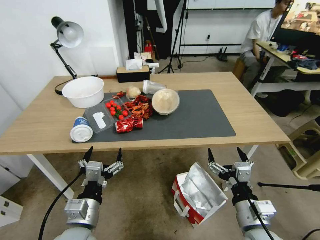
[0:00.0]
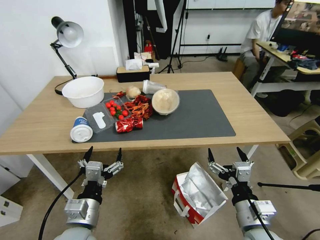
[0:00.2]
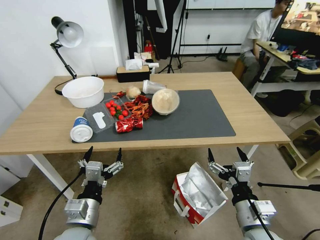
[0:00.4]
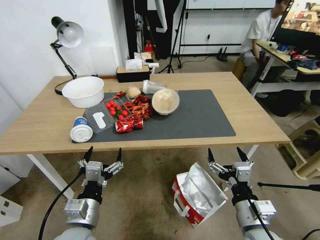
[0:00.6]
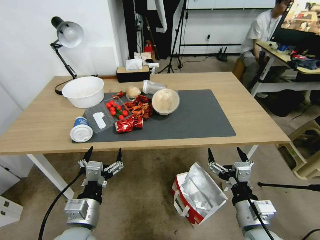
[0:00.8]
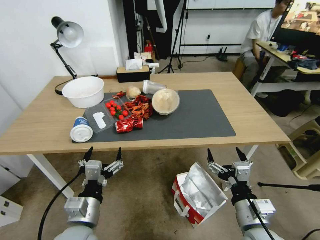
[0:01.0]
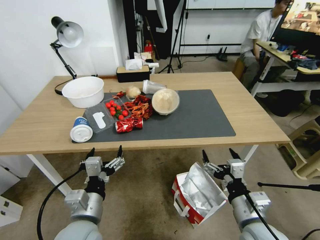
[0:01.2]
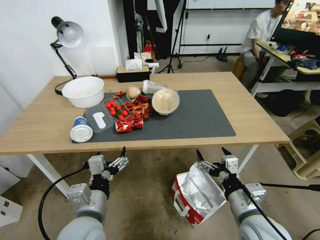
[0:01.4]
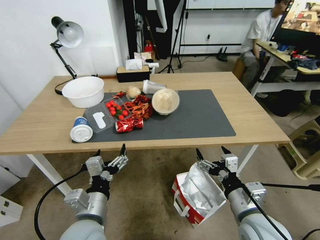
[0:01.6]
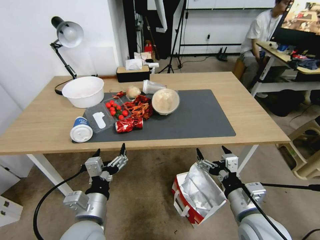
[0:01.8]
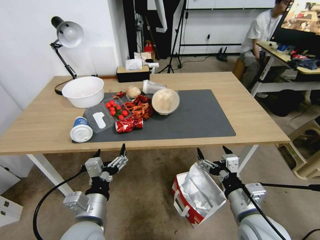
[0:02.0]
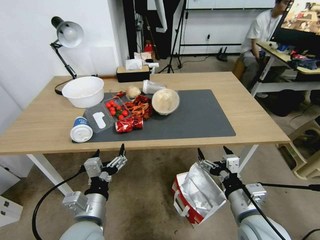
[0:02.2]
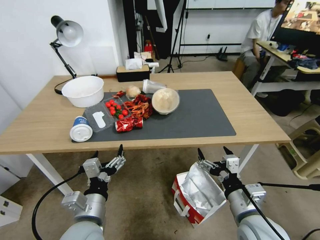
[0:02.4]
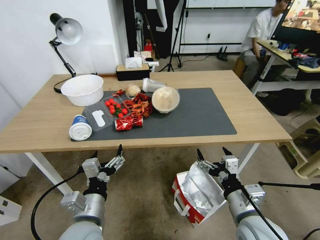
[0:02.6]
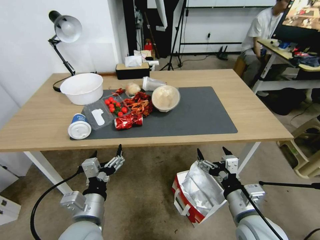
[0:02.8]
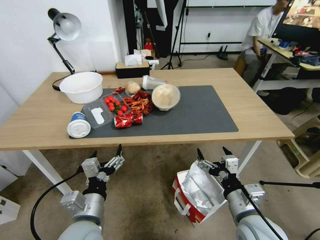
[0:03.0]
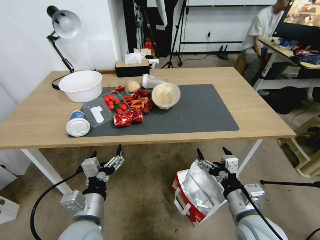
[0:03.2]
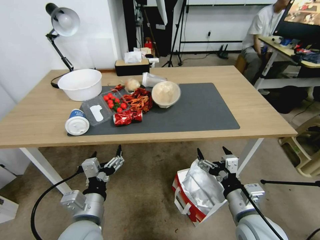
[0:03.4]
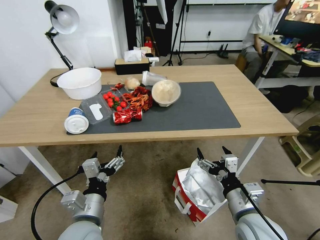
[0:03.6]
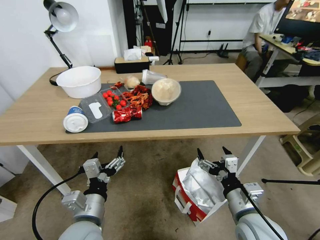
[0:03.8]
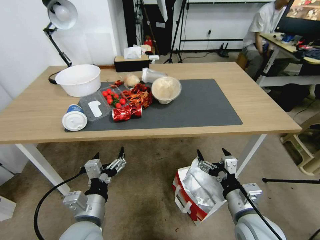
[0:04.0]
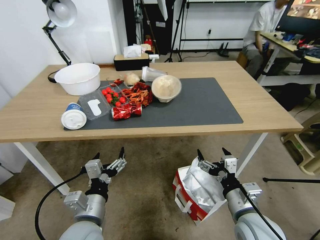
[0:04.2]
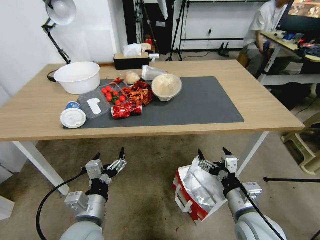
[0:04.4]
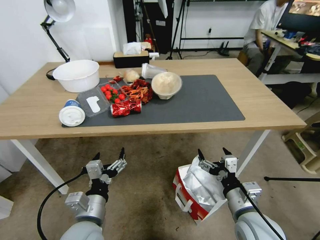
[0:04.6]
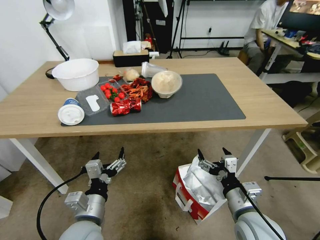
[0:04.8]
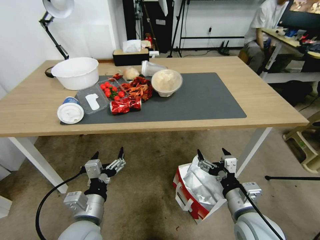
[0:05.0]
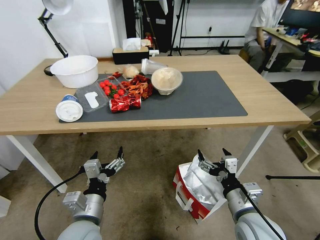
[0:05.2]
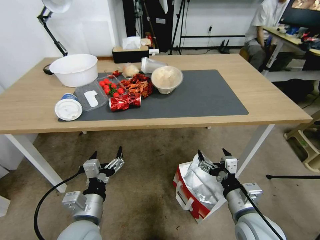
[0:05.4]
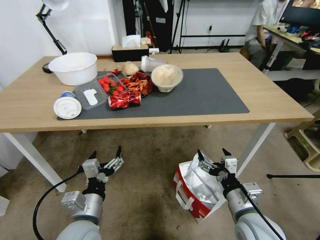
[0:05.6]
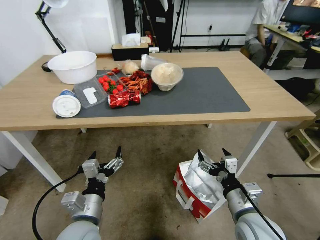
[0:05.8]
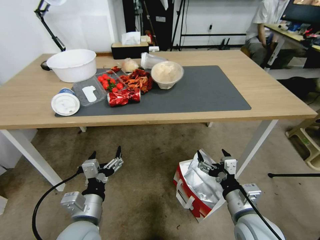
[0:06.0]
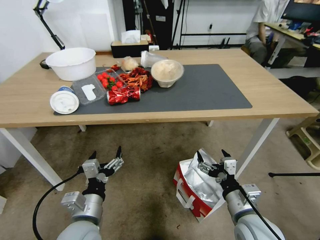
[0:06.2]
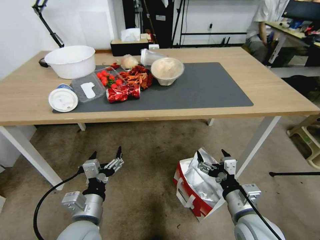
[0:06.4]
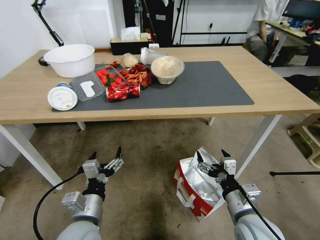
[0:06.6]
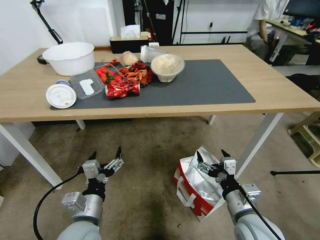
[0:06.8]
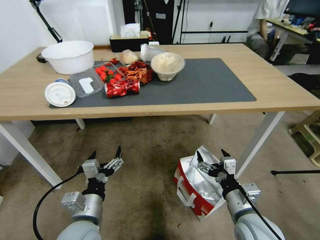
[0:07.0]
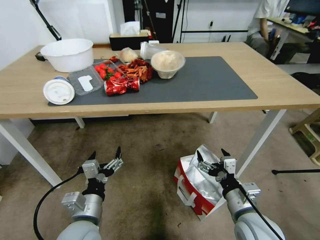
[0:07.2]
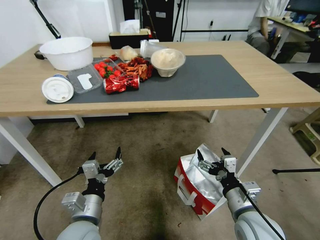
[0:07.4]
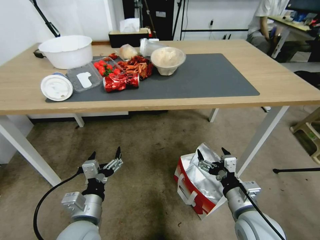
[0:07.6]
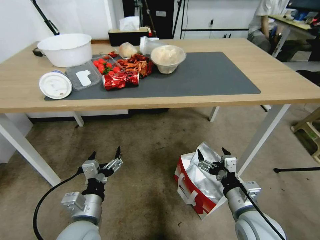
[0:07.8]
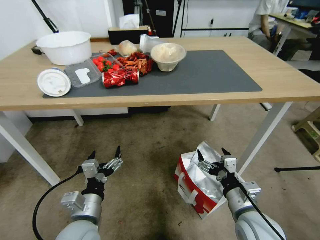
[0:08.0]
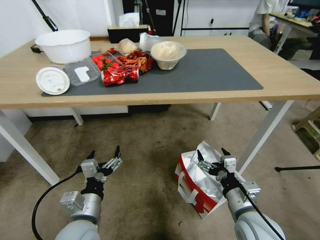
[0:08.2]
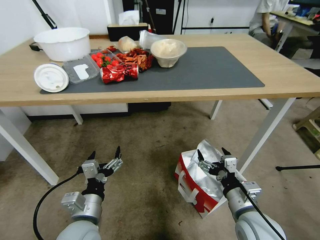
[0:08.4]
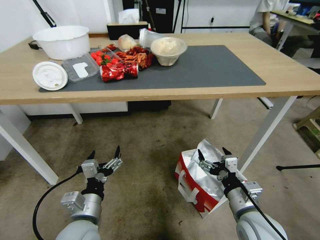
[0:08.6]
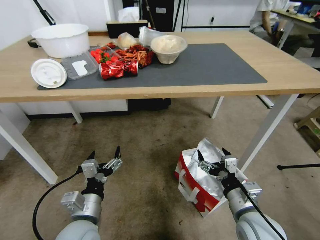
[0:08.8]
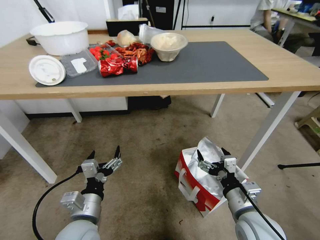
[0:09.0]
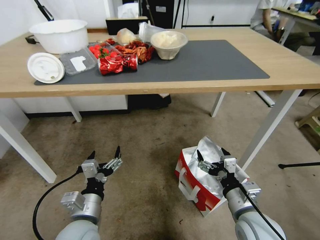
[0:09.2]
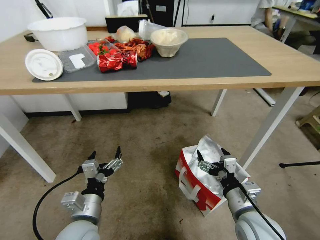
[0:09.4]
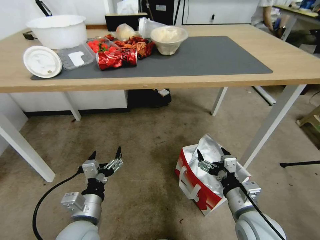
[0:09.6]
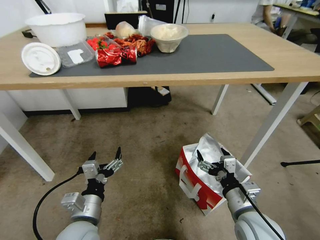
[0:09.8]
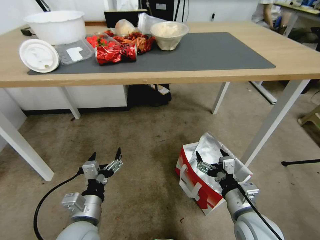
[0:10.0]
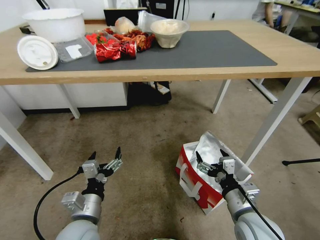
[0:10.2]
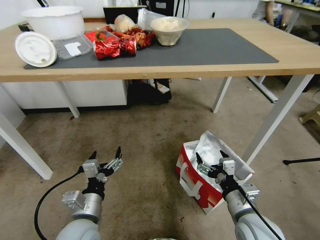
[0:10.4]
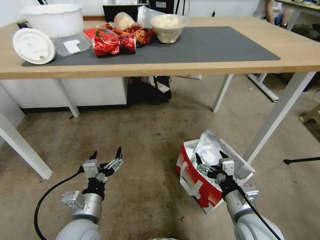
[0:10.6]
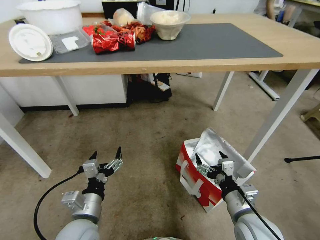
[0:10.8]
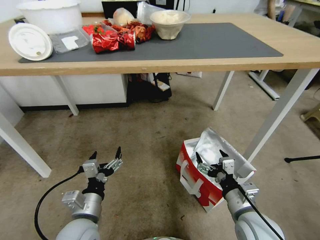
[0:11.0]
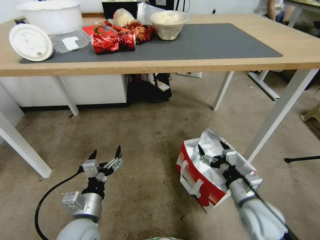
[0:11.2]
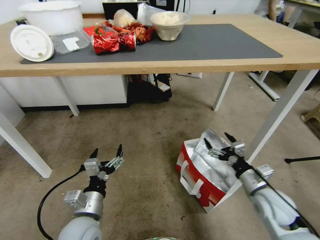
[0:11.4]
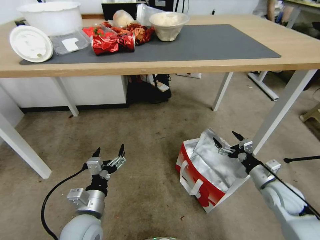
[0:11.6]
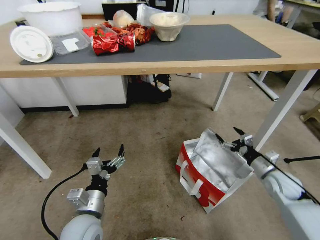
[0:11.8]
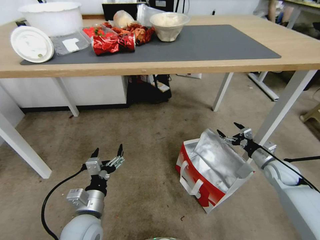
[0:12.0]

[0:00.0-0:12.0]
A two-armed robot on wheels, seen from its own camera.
Task of the whole recording: Pick up the food delivery bag from the floor and place it on the table.
0:10.4 to 0:12.0: The right gripper moves to the right and forward, approximately 30 cm.

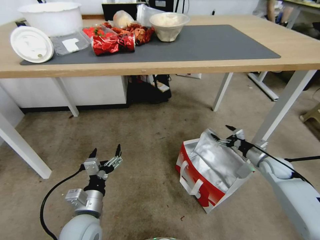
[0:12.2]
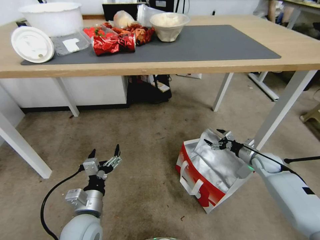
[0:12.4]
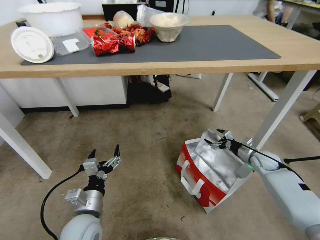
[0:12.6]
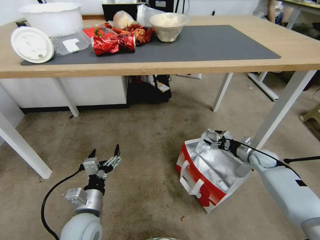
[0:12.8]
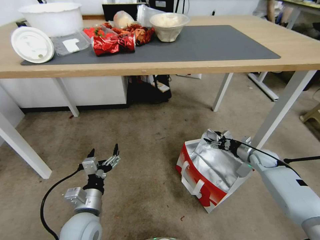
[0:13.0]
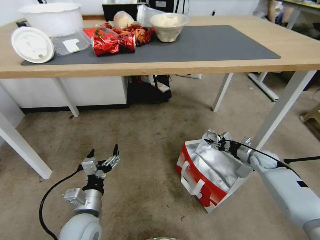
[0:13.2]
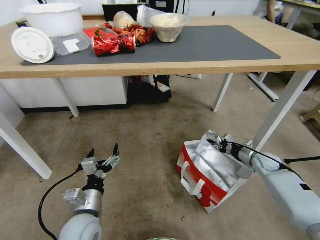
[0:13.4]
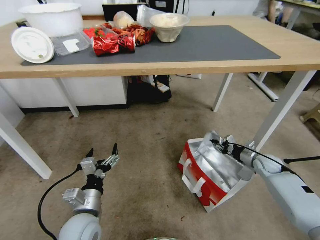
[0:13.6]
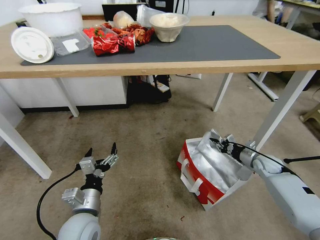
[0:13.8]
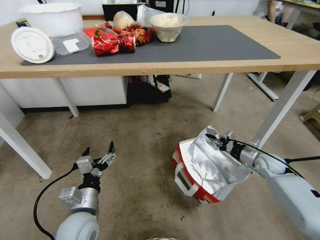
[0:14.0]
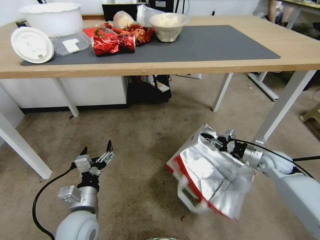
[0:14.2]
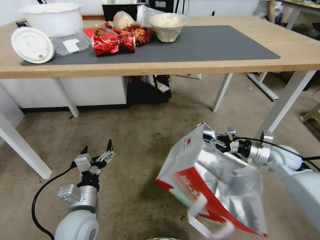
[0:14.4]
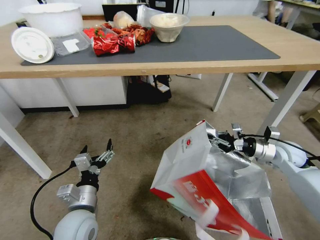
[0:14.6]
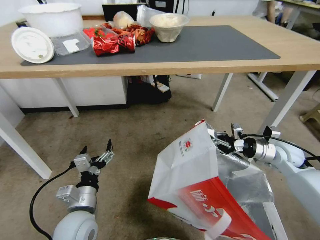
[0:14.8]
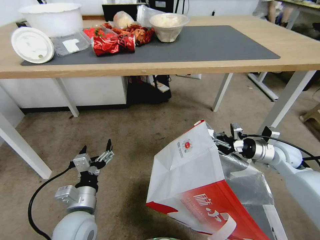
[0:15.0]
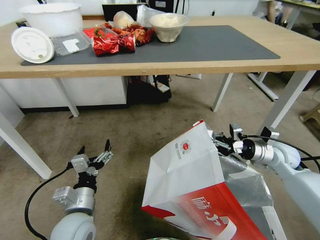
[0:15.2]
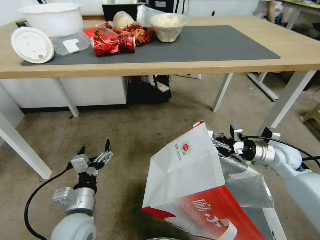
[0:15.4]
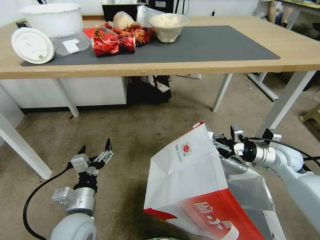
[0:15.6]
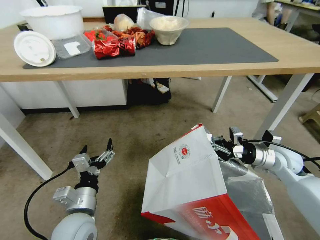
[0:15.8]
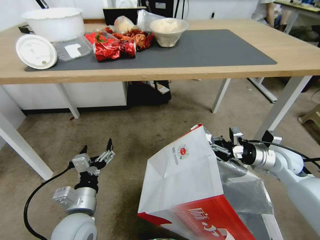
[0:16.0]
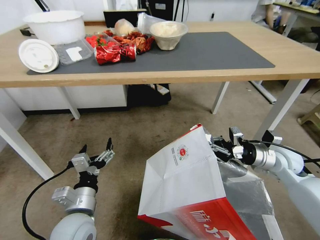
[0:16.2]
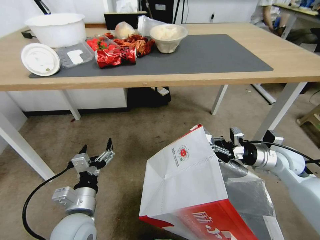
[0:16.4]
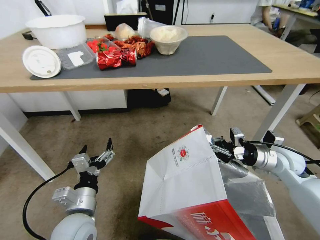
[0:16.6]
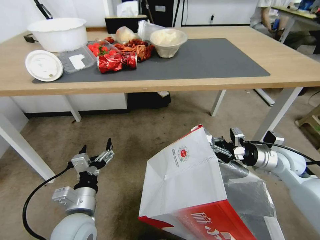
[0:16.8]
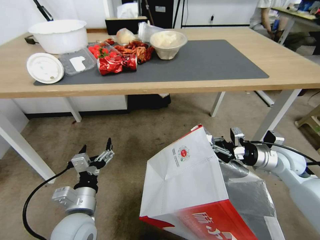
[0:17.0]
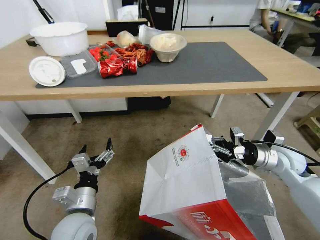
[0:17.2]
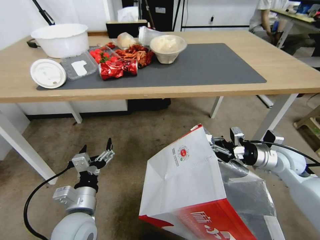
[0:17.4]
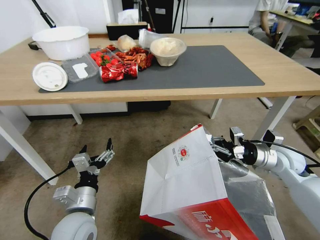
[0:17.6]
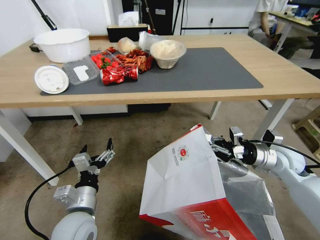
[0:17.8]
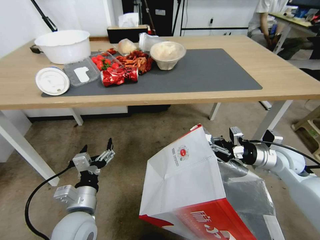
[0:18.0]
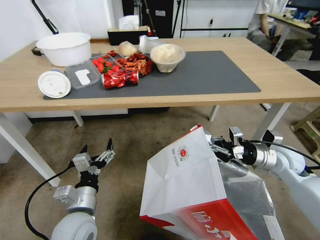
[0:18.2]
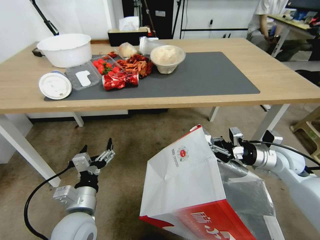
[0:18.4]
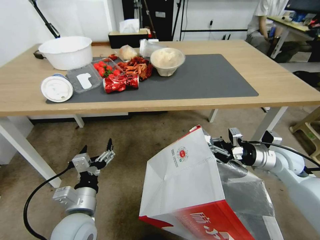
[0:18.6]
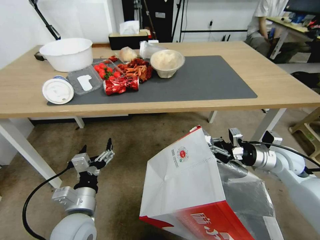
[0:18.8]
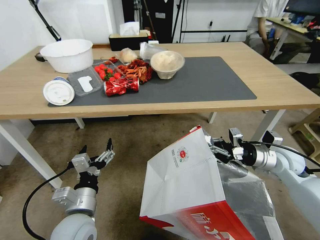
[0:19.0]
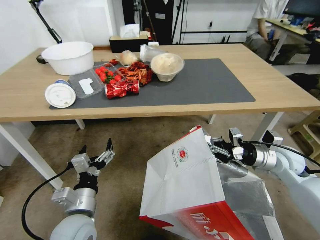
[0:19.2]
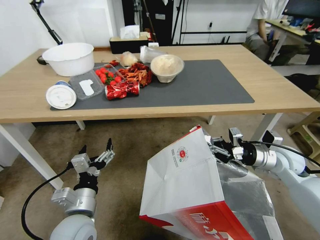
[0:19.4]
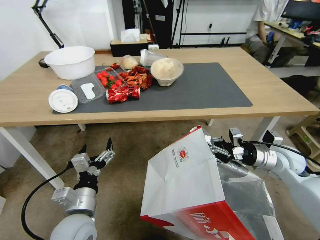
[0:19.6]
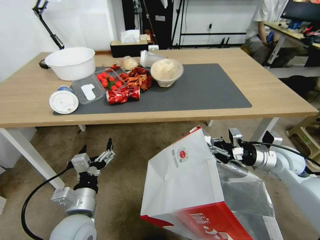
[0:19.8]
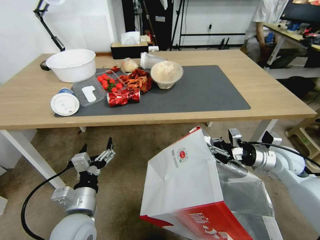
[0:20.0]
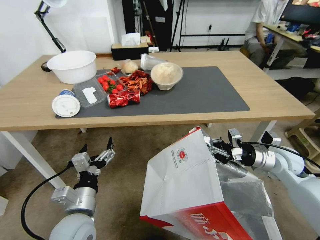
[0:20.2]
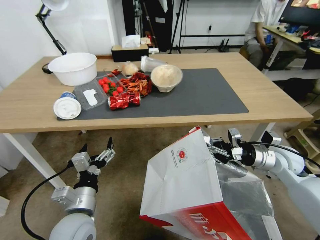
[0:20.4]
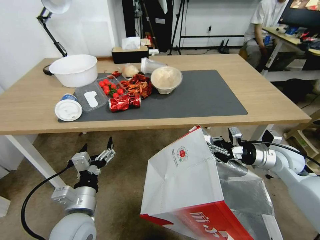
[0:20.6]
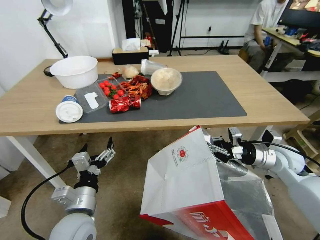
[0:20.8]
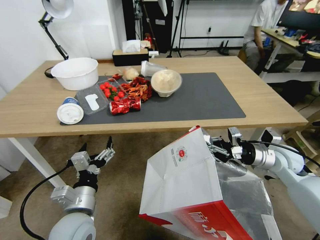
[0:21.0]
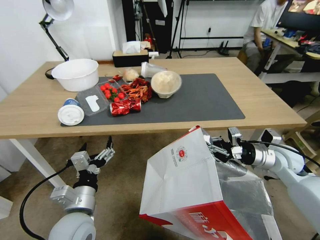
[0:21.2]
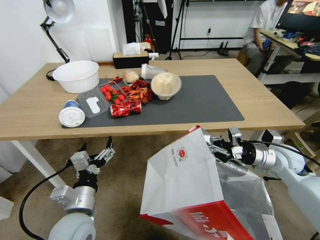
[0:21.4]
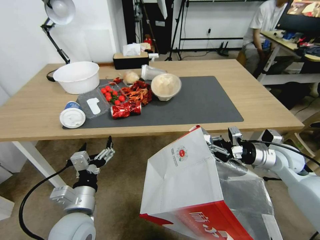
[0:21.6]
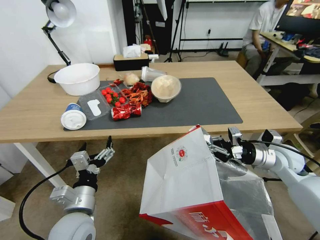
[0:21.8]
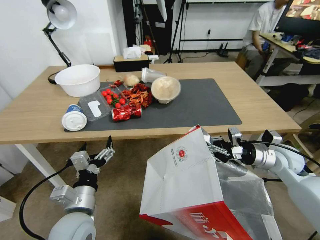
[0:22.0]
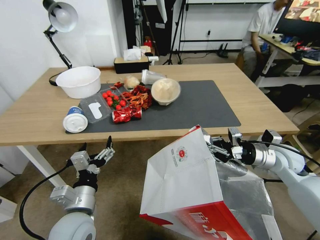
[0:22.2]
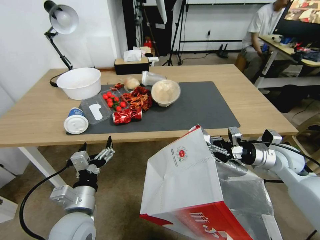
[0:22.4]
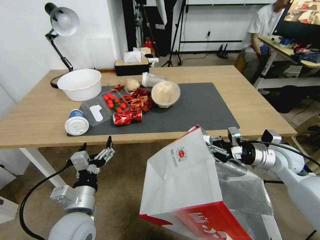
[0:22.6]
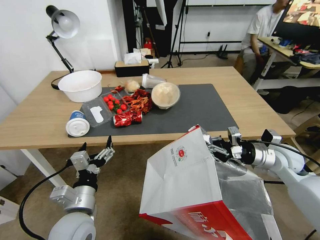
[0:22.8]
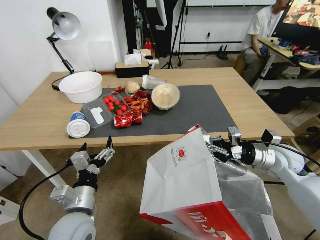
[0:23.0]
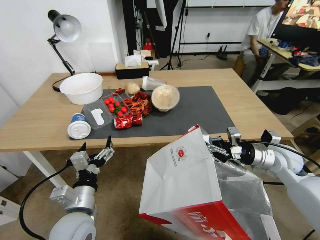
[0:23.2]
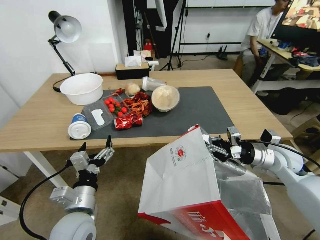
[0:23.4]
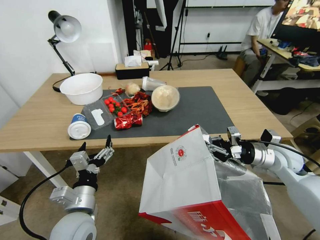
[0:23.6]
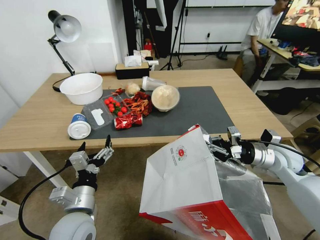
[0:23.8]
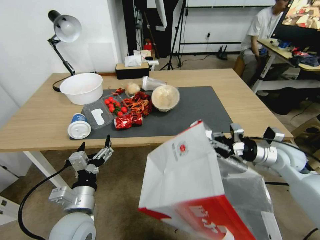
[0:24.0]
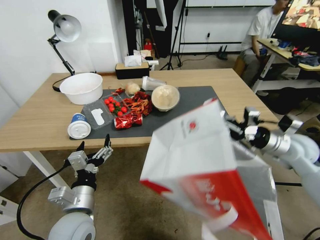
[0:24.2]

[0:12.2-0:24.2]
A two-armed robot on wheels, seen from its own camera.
Task of the whole recording: Pick up the food delivery bag from the floor and place it on the table.
0:12.2 to 0:13.8: The right gripper closes.
0:13.8 to 0:15.2: The right gripper is displaced upward and to the left by roughly 15 cm.
